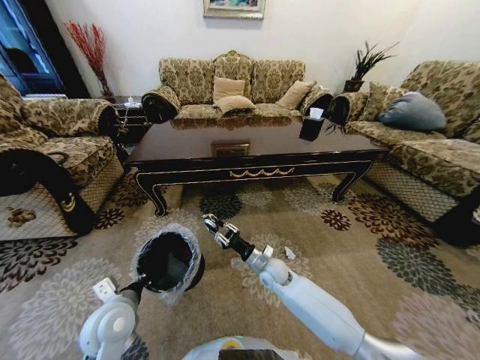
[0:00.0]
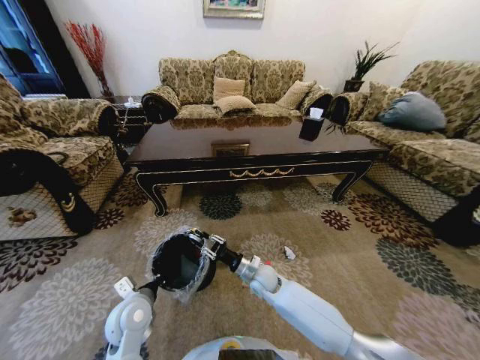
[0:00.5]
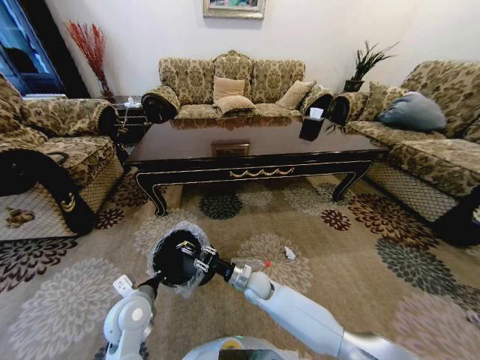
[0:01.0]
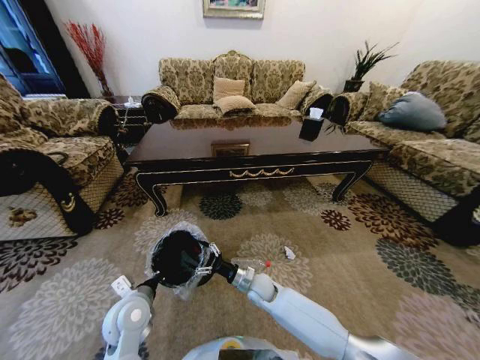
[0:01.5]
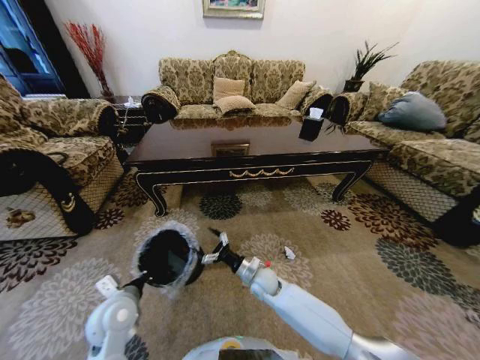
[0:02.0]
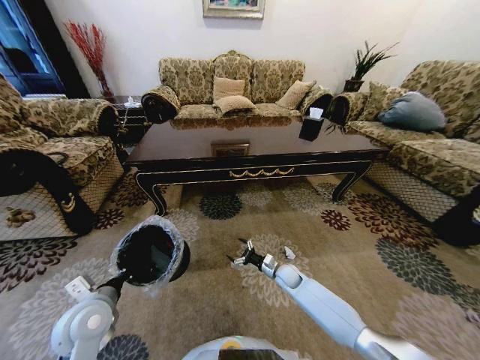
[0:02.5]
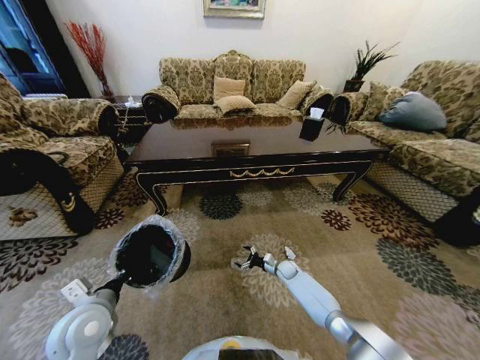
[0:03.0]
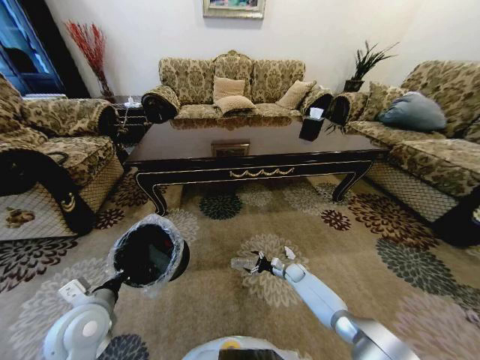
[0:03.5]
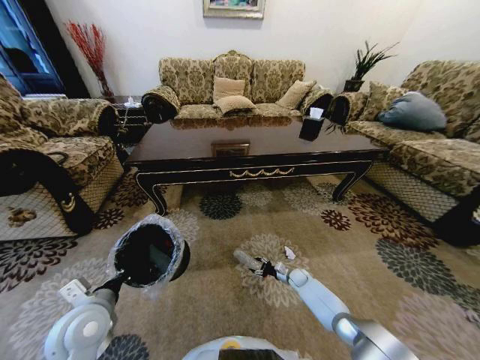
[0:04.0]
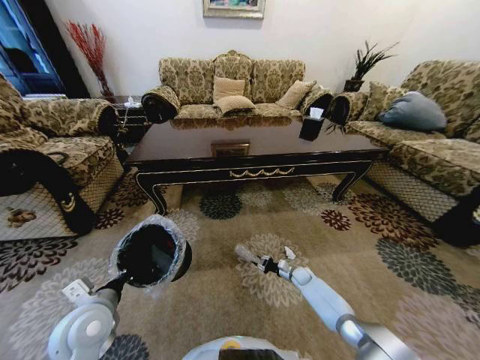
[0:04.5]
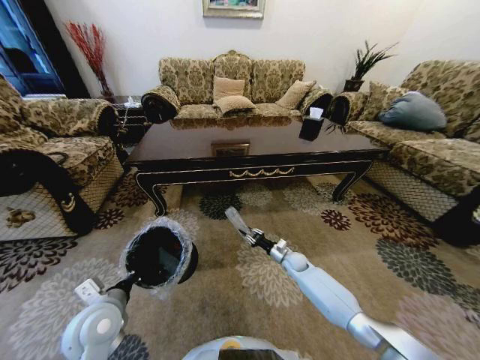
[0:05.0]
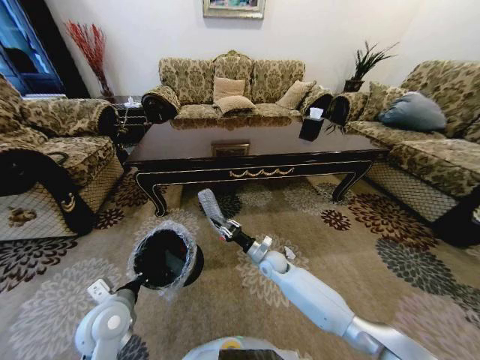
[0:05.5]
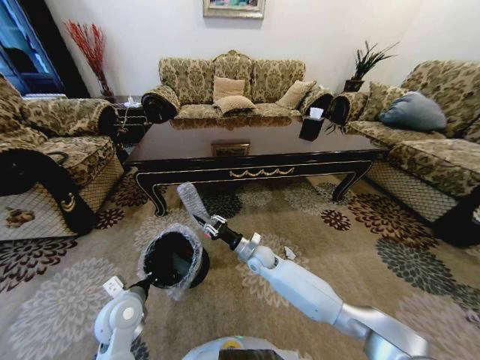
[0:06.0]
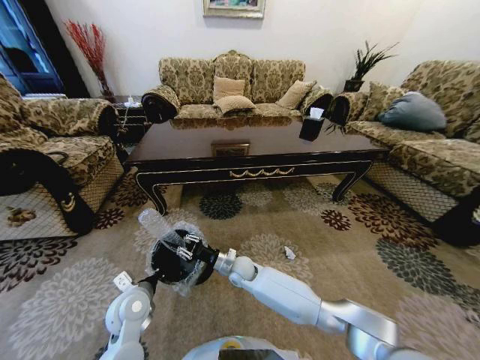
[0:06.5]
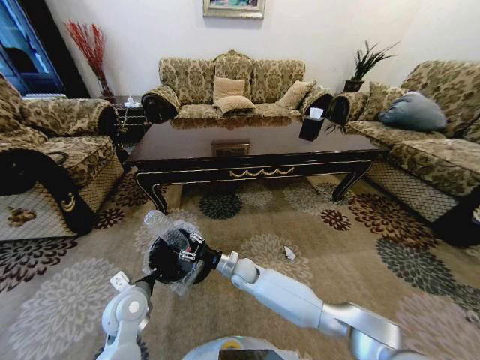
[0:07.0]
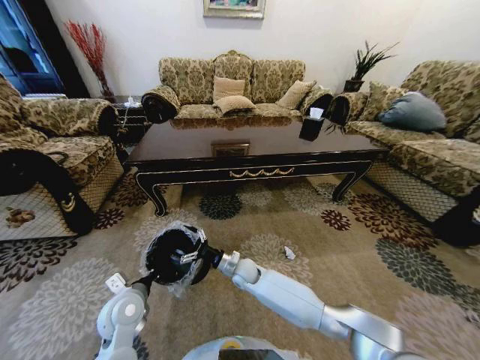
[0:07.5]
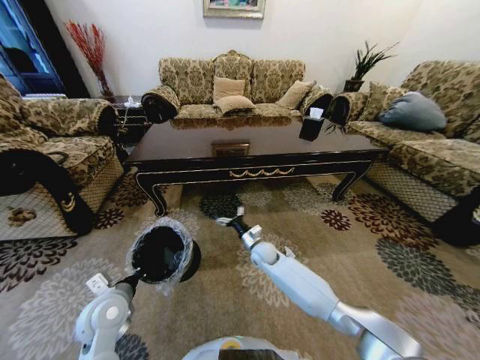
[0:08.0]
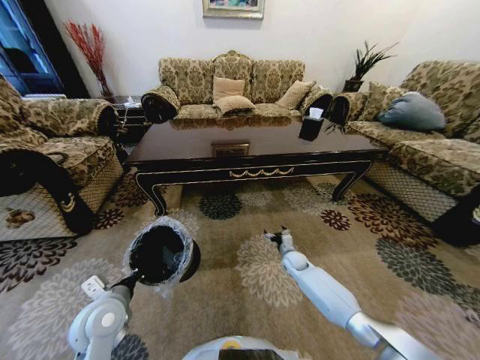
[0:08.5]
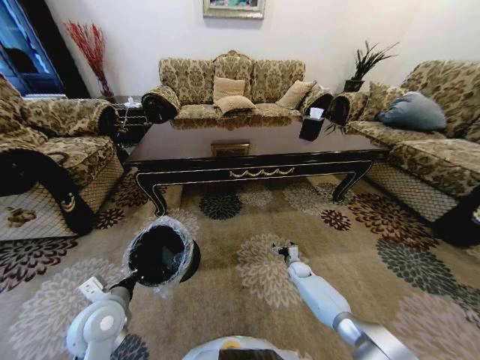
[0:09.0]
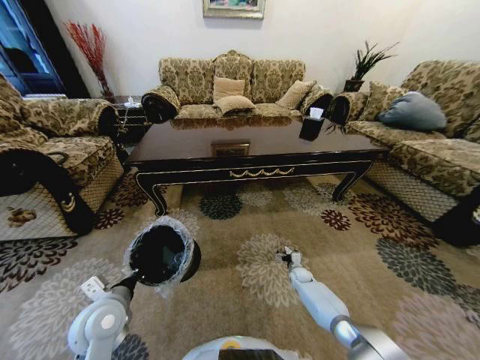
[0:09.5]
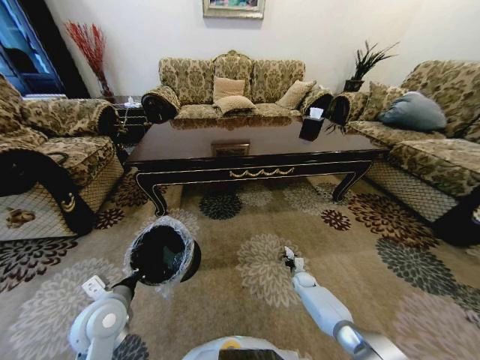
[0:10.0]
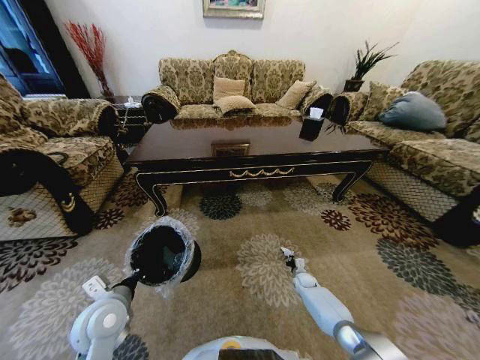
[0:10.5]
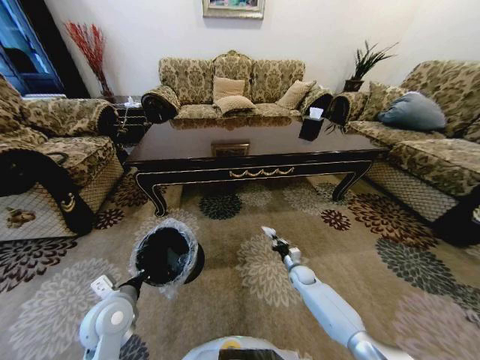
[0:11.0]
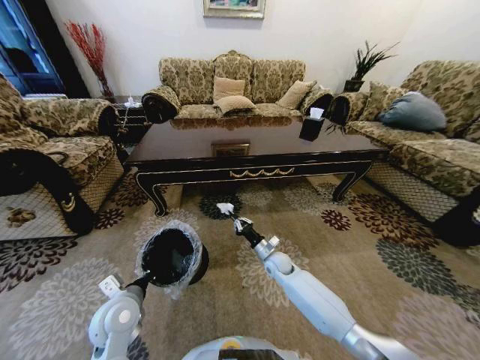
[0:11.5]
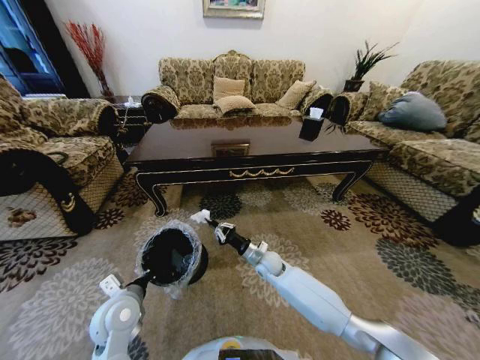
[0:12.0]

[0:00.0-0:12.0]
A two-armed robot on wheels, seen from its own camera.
Task of the whole recording: Move to the front of the table and pick up the trash from the floor, then place it into the trash bin.
0:00.0 to 0:02.0: The right gripper opens up.
0:02.0 to 0:04.0: The left gripper ends up some 5 cm from where it was; the right gripper goes approximately 25 cm to the right and downward.
0:04.0 to 0:06.0: The left gripper shifts some 5 cm downward. The right gripper moves to the left and upward, some 30 cm, and closes its fingers.
0:06.0 to 0:08.0: The right gripper reaches about 5 cm to the left, then returns, and opens its fingers.
0:08.0 to 0:10.0: The right gripper is displaced to the right and downward by approximately 30 cm, and closes.
0:10.0 to 0:12.0: The right gripper travels to the left and upward by roughly 25 cm, and closes its fingers.

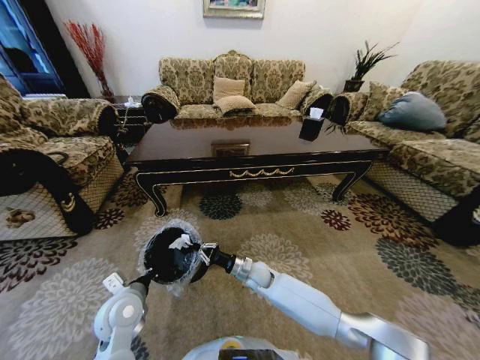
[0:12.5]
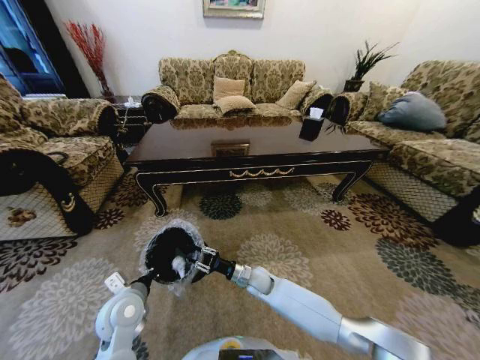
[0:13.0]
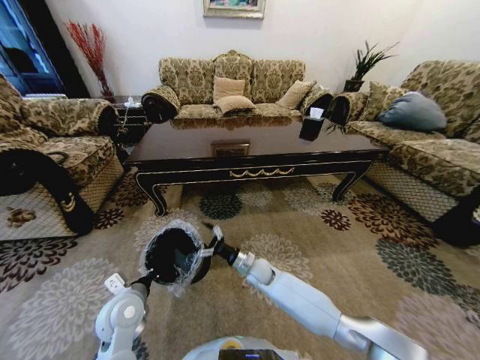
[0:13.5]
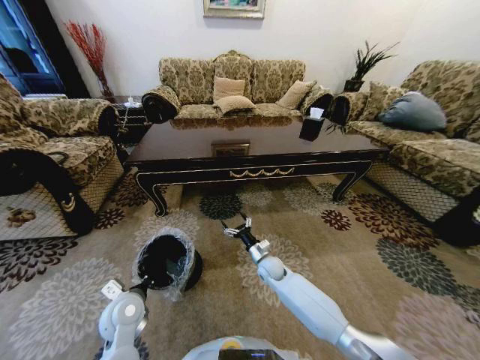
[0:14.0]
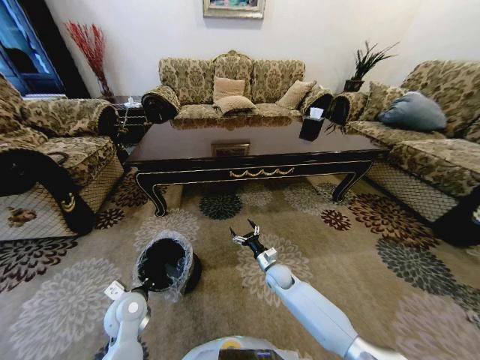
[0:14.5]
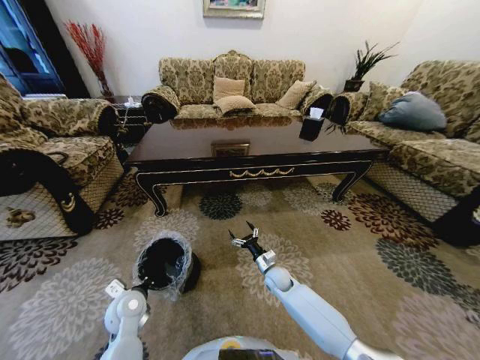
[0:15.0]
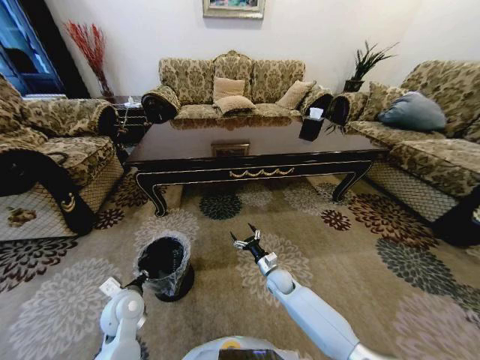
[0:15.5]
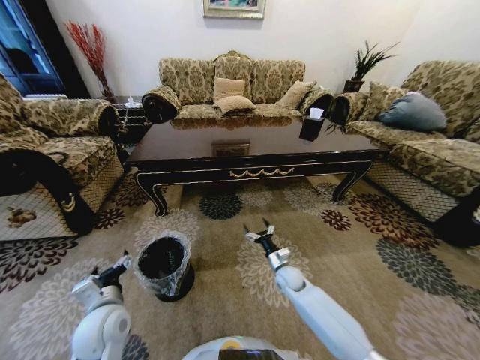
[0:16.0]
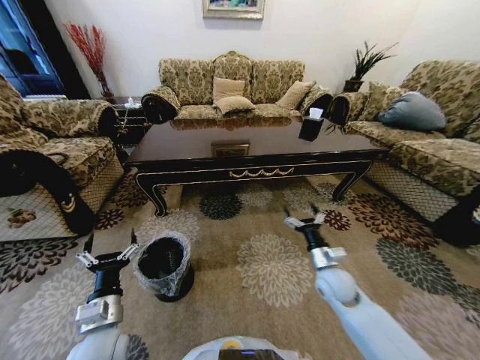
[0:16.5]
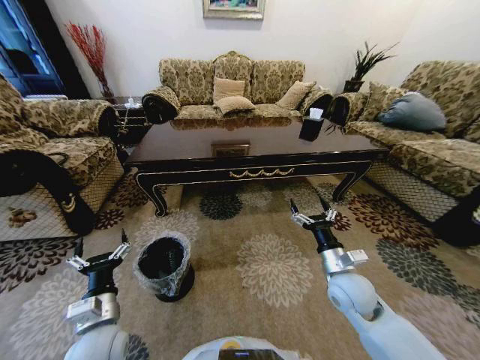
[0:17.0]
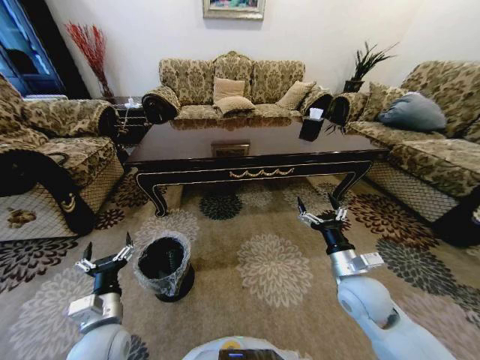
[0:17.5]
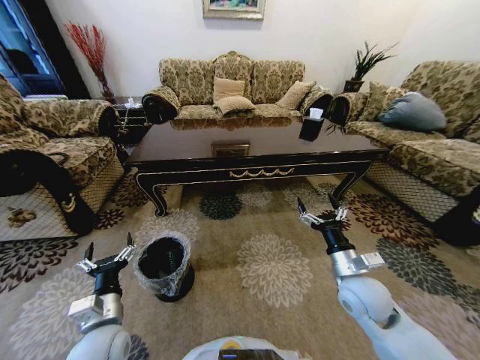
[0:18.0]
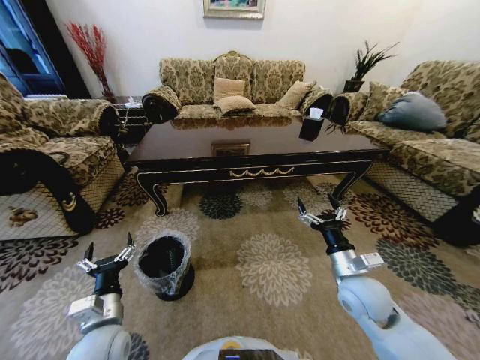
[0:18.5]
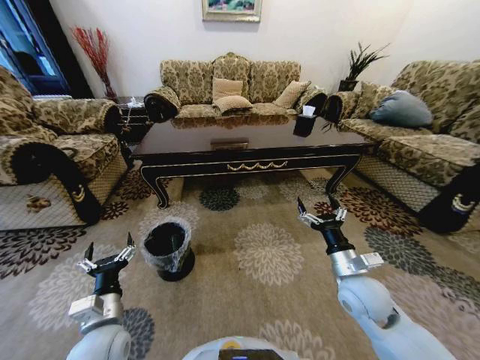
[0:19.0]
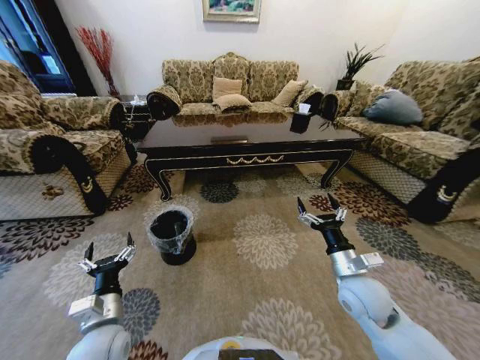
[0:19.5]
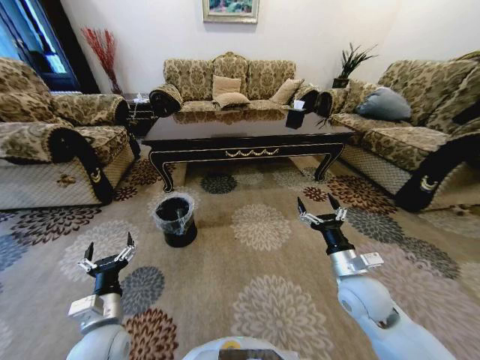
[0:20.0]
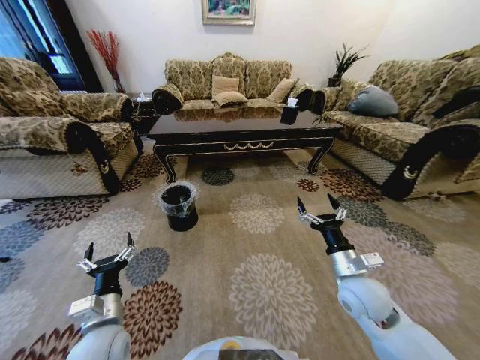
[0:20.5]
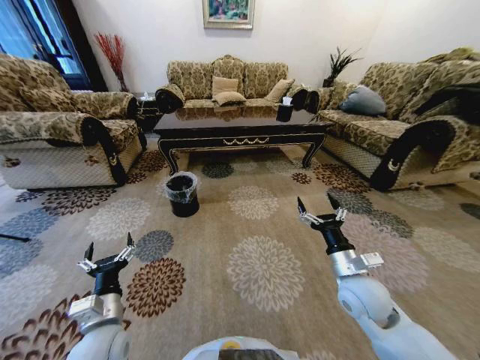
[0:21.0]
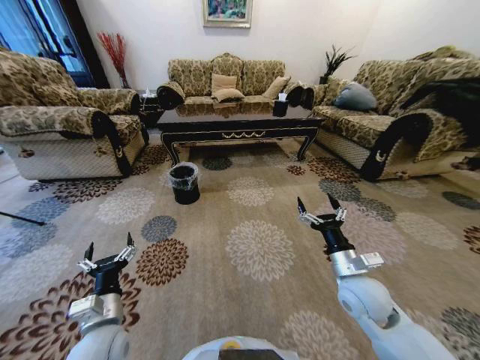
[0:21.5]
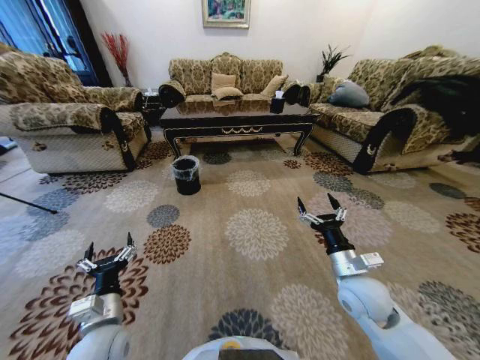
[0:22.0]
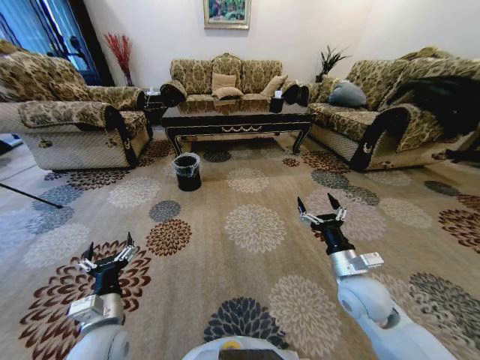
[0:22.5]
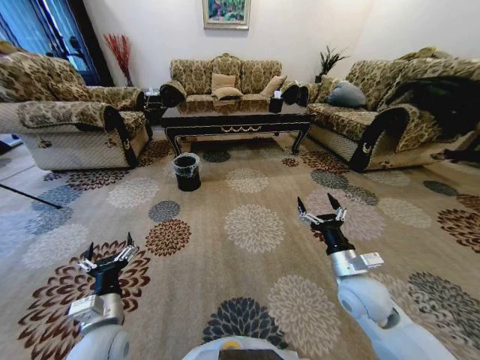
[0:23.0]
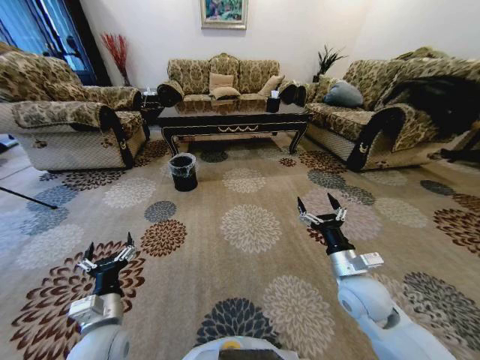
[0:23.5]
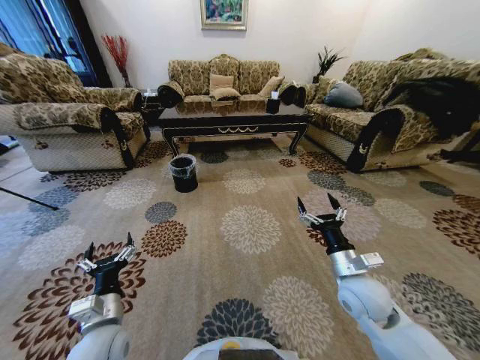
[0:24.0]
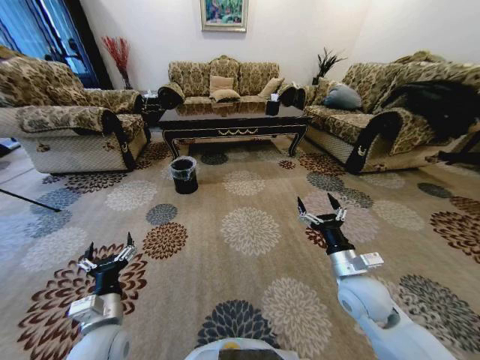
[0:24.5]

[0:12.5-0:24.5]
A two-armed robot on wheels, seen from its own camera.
Task of the whole recording: Move to the front of the table and pick up the trash from the floor, then place it into the trash bin.
0:12.5 to 0:14.5: The right gripper goes approximately 10 cm to the right, and opens up.
0:14.5 to 0:16.5: The right gripper is displaced upward, to the right and backward by about 20 cm. Meanwhile the left gripper shifts some 10 cm backward and upward, and opens.
0:16.5 to 0:18.5: The right gripper travels upward and backward by about 10 cm.
